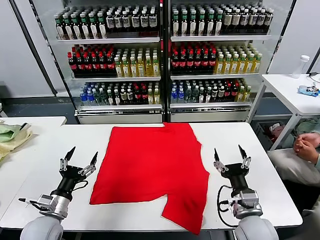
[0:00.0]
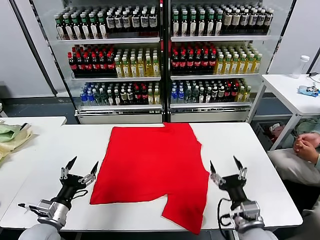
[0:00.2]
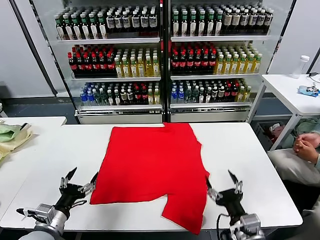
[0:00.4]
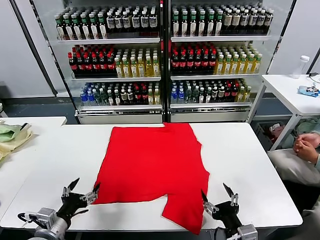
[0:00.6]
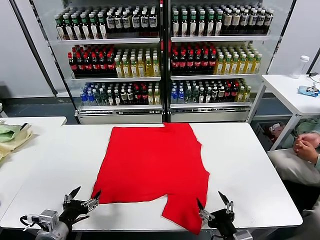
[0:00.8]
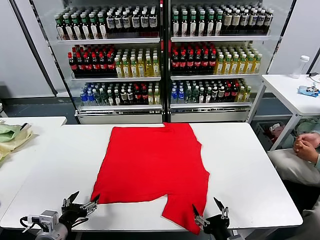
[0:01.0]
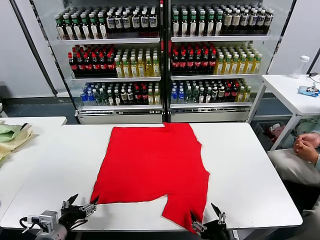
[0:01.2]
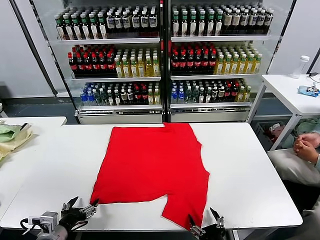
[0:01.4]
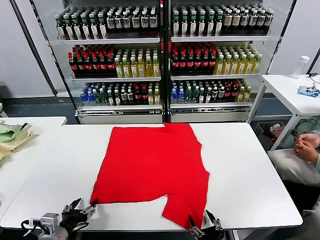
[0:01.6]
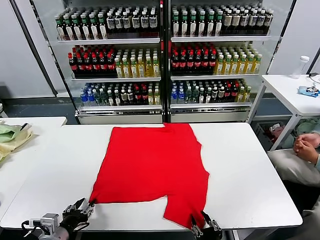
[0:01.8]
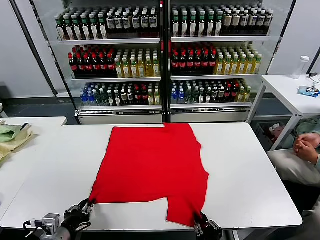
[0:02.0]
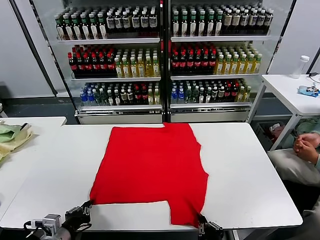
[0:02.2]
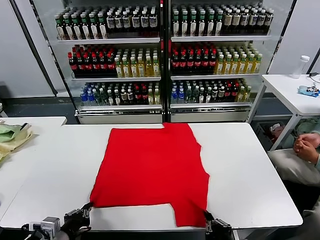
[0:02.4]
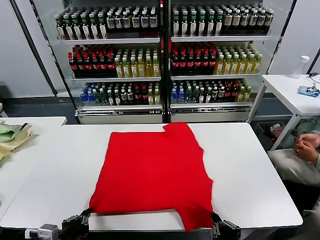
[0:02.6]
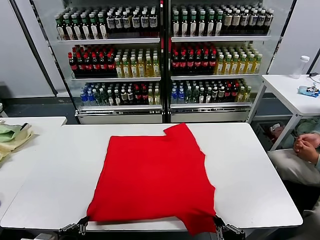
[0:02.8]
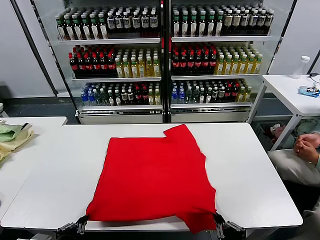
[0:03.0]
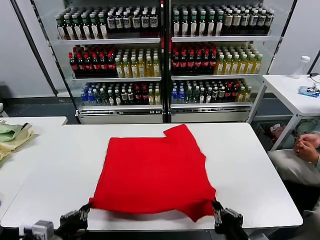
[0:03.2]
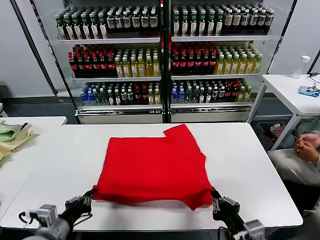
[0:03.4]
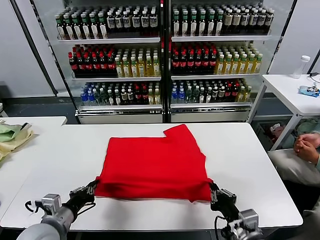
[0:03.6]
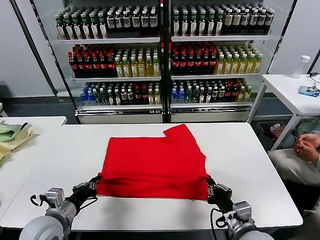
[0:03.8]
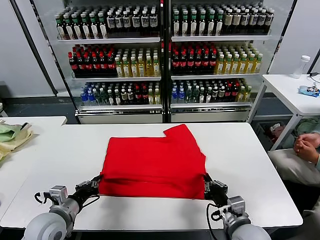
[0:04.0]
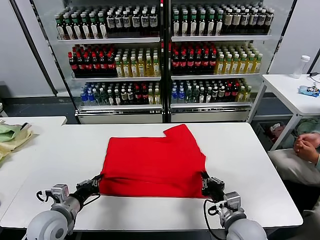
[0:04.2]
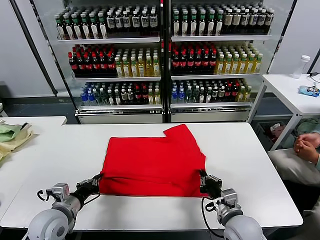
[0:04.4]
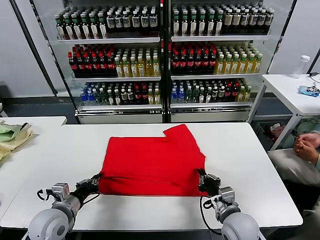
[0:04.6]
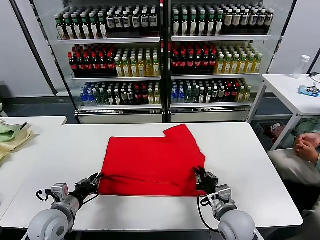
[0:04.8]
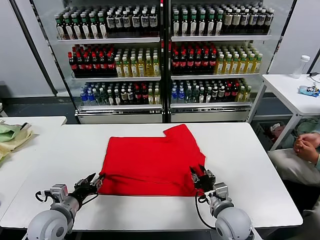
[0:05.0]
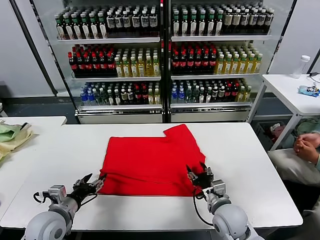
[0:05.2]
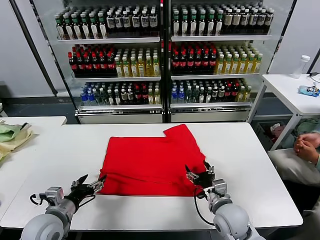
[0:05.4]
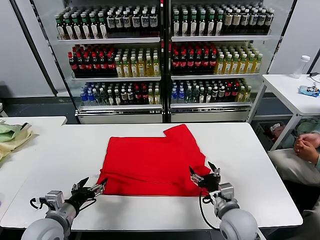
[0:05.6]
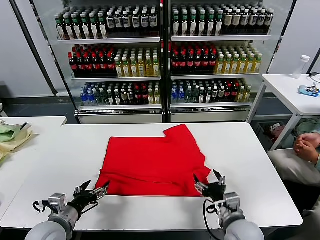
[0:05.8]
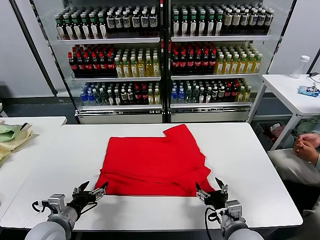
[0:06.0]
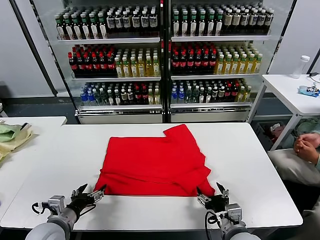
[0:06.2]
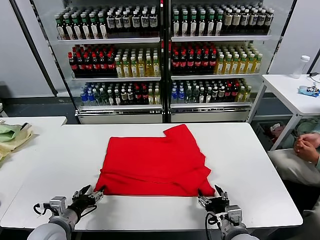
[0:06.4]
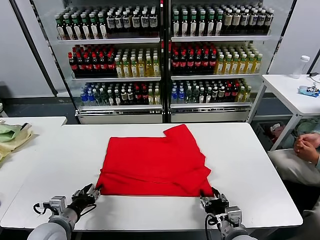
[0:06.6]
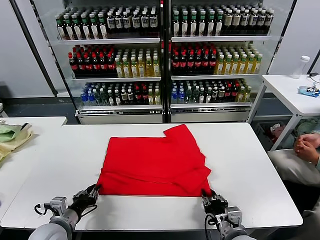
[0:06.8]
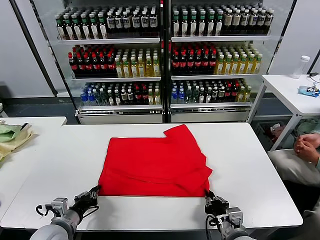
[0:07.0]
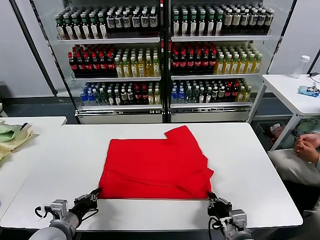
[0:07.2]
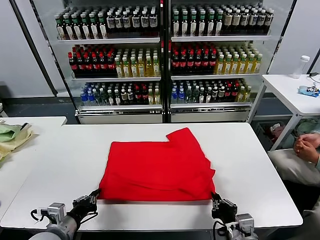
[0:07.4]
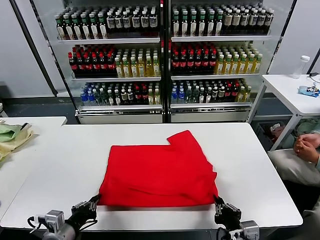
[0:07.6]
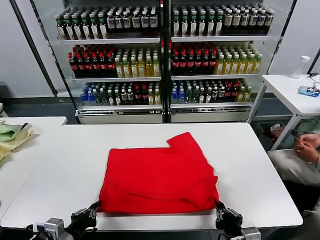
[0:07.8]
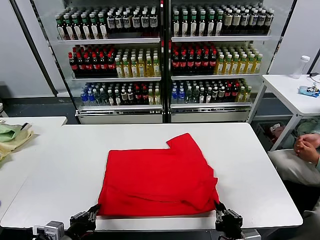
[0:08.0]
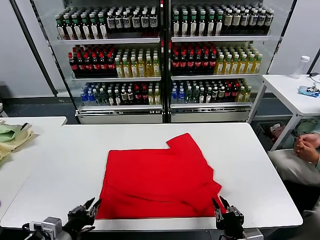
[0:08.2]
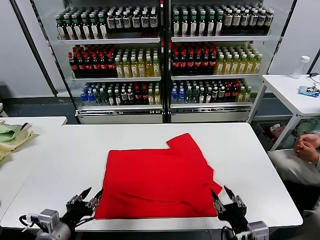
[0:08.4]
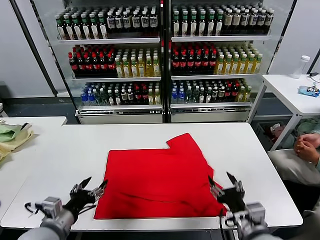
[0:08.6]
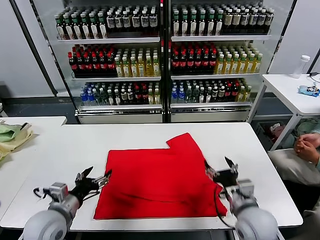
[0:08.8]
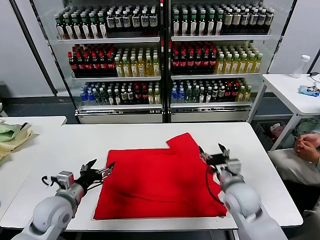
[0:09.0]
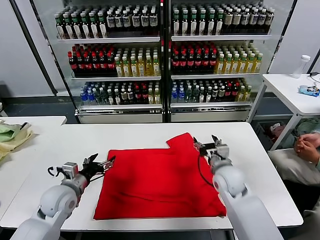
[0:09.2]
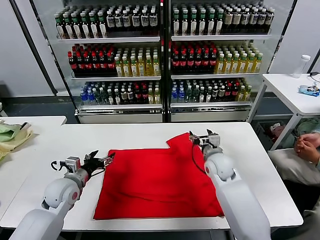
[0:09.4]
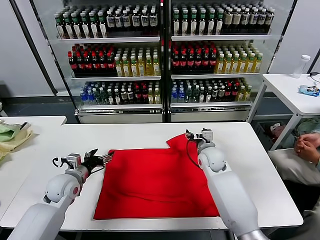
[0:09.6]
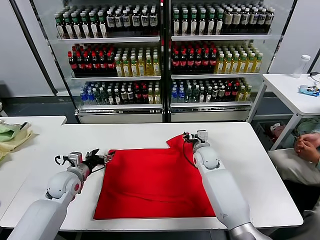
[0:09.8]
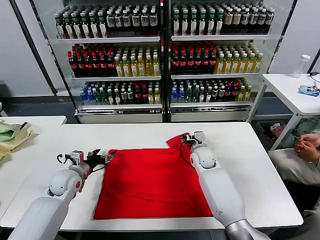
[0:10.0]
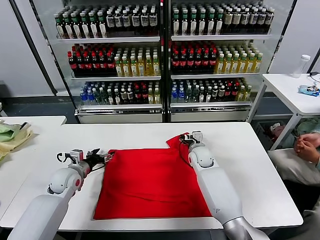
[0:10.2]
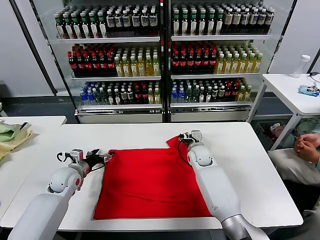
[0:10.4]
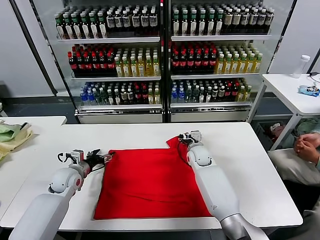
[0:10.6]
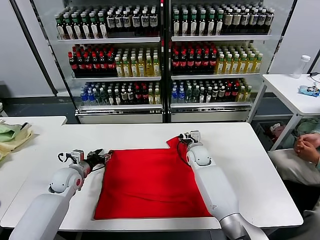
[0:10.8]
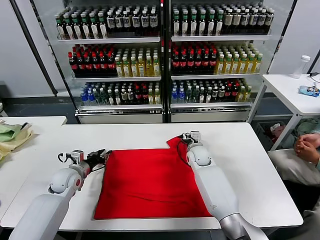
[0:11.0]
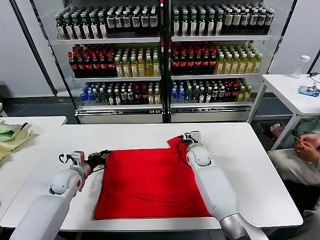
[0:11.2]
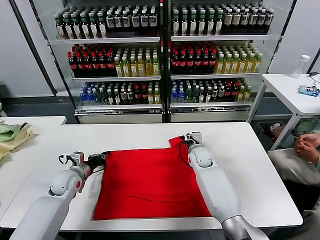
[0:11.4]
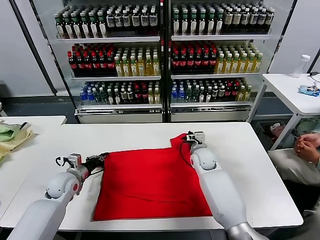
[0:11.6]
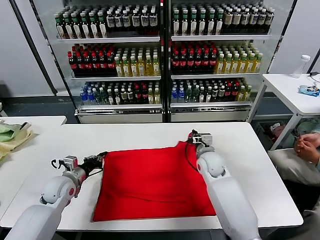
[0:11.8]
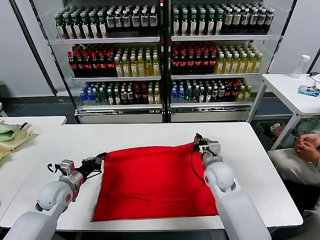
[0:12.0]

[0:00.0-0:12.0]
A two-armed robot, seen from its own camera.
Task of the whole recording: fold and organize the clothes.
Step, 0:00.0 to 0:02.2: use both grippers simultaneously to clamp the lower edge of the clothing fabric.
Step, 0:02.4 to 0:04.8: use both grippers to drag the lower edge of the fabric forward and fold it over the upper edge.
Step, 0:05.0 to 0:08.0: Drag the clothes downward with both gripper.
Step, 0:08.2 to 0:11.2: use both grippers simultaneously to clamp the upper edge of the clothing fabric.
0:01.6 to 0:03.0: The right gripper heads upward, covering roughly 10 cm, and closes up. Meanwhile the left gripper shifts about 10 cm backward and upward, and closes up.
0:03.0 to 0:04.4: The right gripper heads forward and downward, covering some 15 cm; the left gripper moves forward, about 15 cm.
0:04.4 to 0:06.0: The left gripper opens up; the right gripper opens.
0:06.0 to 0:07.6: Both grippers travel together backward, some 5 cm. The right gripper closes its fingers; the left gripper closes its fingers.
0:07.6 to 0:09.0: The left gripper heads forward, covering approximately 10 cm, and opens its fingers. The right gripper travels forward by roughly 20 cm, and opens its fingers.
0:09.0 to 0:10.4: The left gripper travels forward by about 15 cm. The right gripper goes some 20 cm forward and to the left.
0:10.4 to 0:12.0: The left gripper travels backward by about 5 cm, and closes its fingers. Meanwhile the right gripper moves backward, approximately 15 cm, and closes its fingers.

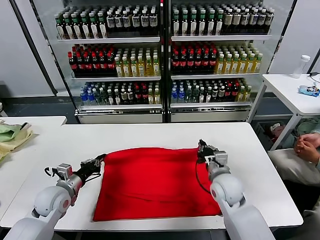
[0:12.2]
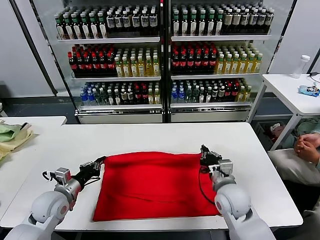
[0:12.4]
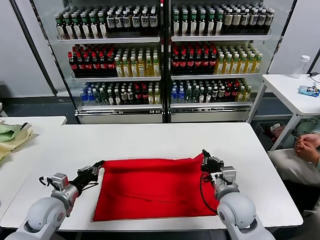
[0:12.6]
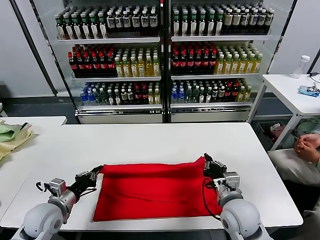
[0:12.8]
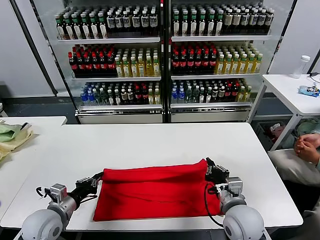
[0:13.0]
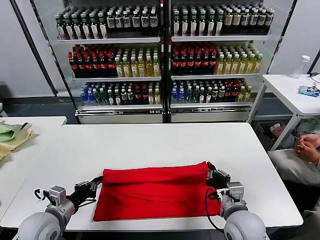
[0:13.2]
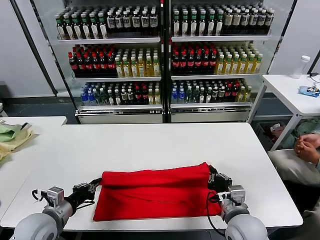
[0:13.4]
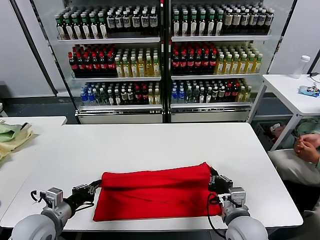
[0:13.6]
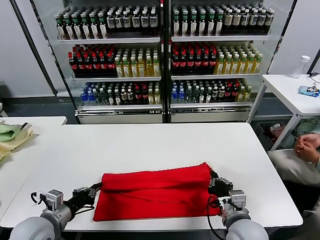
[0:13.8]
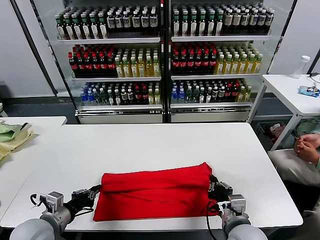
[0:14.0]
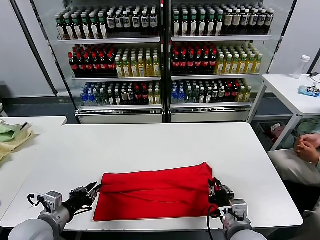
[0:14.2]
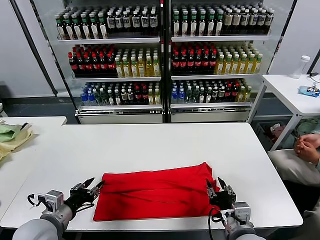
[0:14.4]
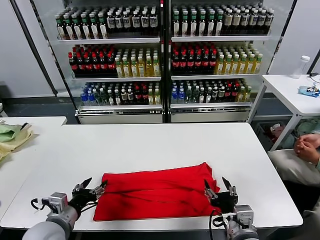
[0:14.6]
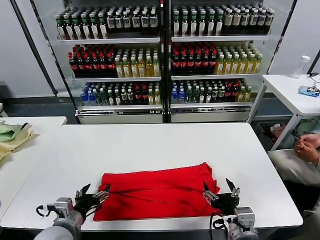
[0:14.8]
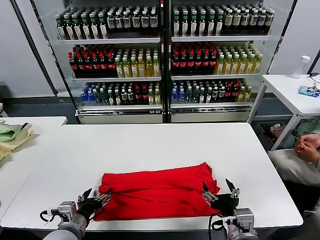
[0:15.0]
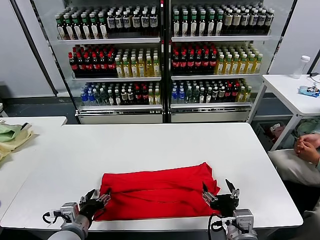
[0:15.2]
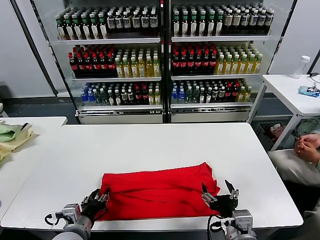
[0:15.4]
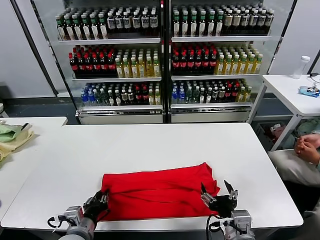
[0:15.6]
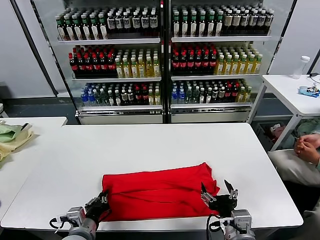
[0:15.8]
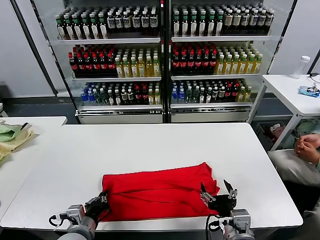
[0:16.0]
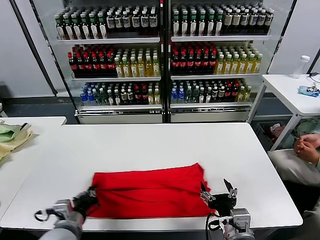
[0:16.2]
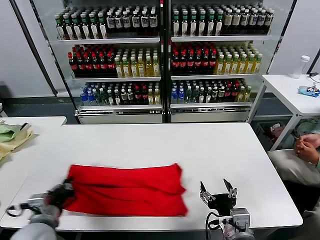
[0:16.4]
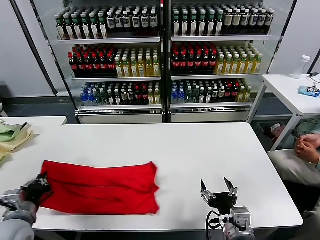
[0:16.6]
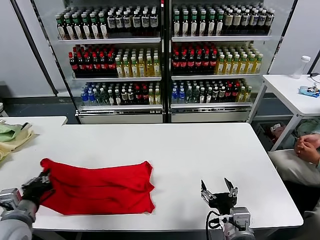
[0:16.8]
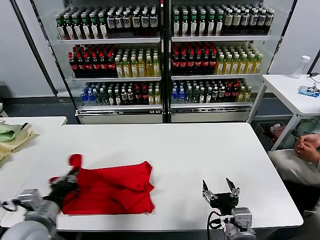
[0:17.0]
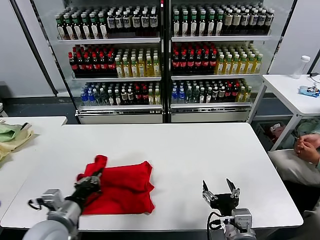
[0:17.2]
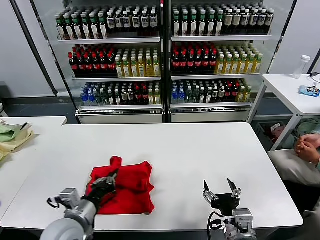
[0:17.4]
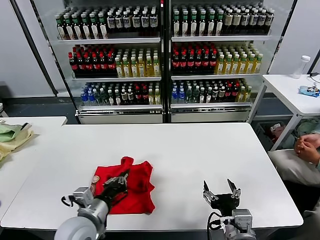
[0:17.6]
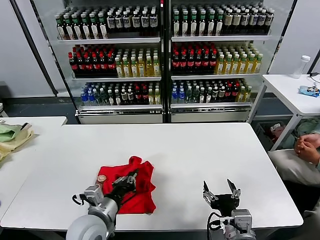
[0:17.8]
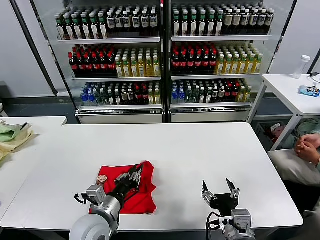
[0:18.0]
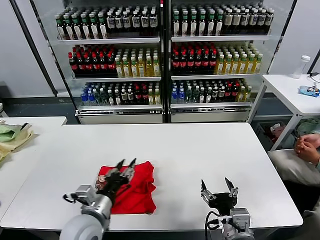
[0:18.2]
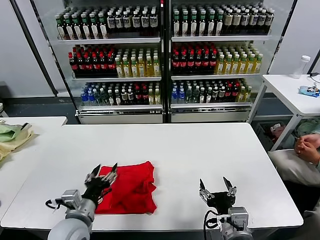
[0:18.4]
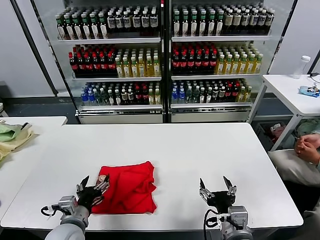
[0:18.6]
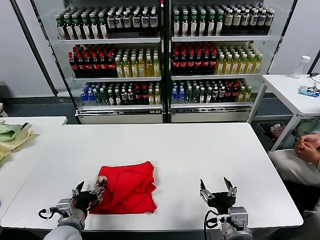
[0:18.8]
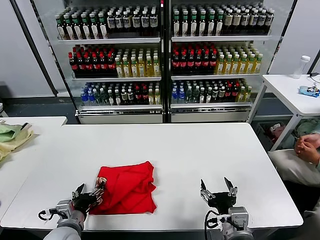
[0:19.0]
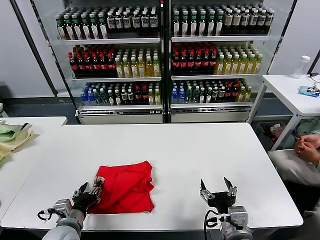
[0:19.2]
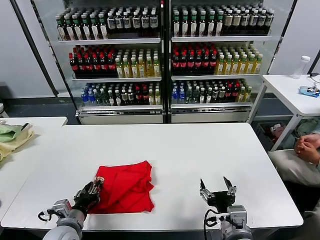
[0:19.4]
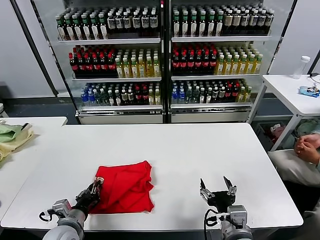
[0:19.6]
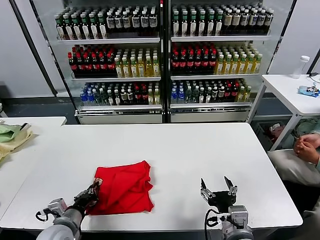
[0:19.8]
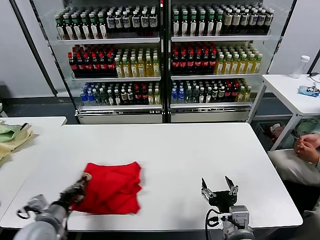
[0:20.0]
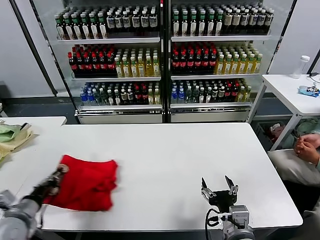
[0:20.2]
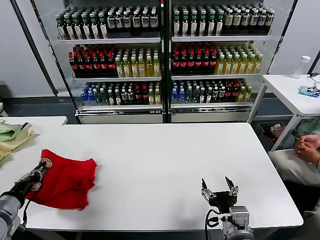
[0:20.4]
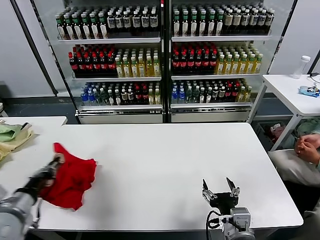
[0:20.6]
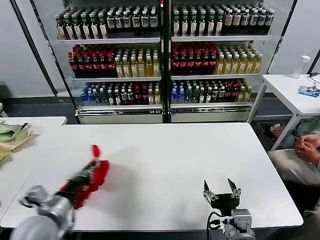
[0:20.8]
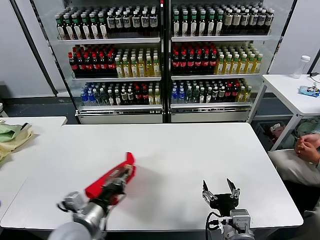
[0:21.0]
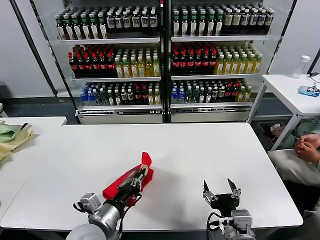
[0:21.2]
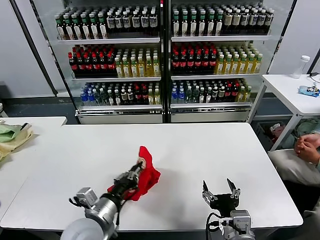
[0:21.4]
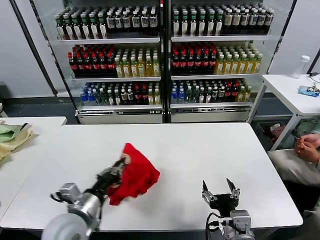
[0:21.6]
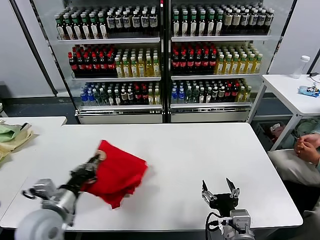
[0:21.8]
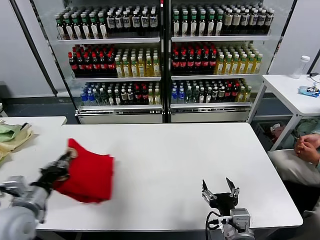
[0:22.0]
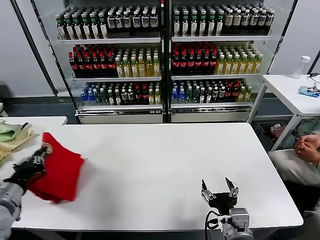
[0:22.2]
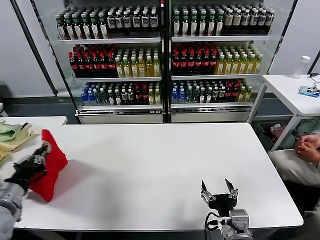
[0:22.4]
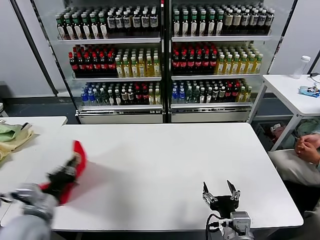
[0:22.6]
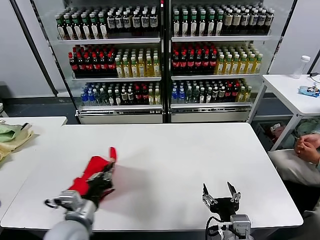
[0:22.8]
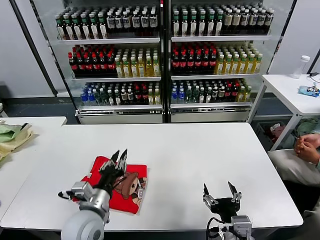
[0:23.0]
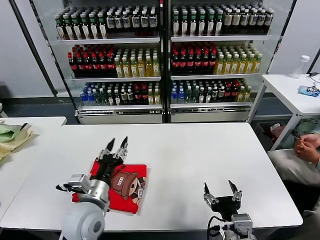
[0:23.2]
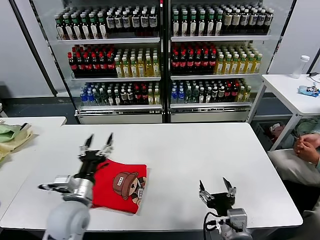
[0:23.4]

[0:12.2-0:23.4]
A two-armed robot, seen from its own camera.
Task of the whole recording: fold and organize the clothes.
Step, 0:12.2 to 0:14.2: use both grippers to drag the upper edge of the fabric backward and fold it over the lower edge.
Step, 0:14.4 to 0:15.6: use the left gripper to clamp the left edge of the fabric.
Step, 0:15.8 to 0:18.0: use the left gripper to drag the left edge of the fabric to the left and folds it over the right edge.
Step, 0:18.2 to 0:22.8: Flip the folded clothes over with left gripper.
0:12.2 to 0:13.8: The two grippers go roughly 10 cm backward.
0:13.8 to 0:15.4: The left gripper moves to the right, approximately 10 cm, and opens, while the right gripper travels backward by roughly 5 cm, and opens its fingers.
0:15.4 to 0:17.0: The left gripper is displaced upward and to the left by some 10 cm, and closes up.
0:17.0 to 0:18.6: The left gripper goes some 10 cm downward and to the right, and opens its fingers.
0:18.6 to 0:20.2: The left gripper moves to the left, about 15 cm, and closes its fingers.
0:20.2 to 0:21.8: The left gripper swings left and right, roughly 25 cm each way, with 2 reversals.
0:21.8 to 0:23.4: The left gripper goes to the left and returns, some 10 cm each way, and opens.
